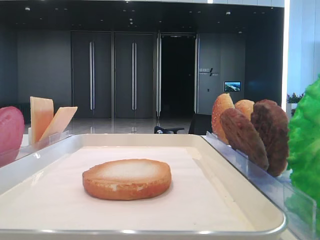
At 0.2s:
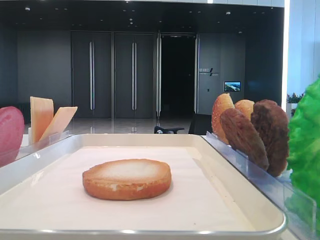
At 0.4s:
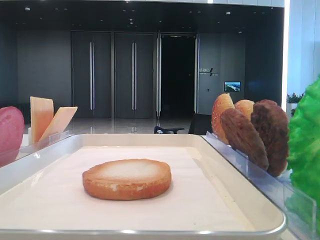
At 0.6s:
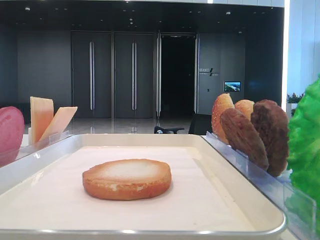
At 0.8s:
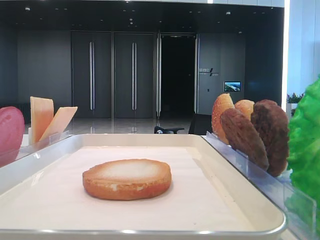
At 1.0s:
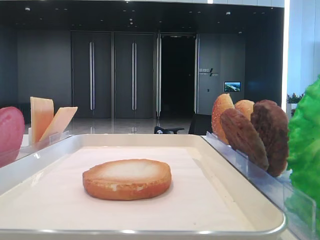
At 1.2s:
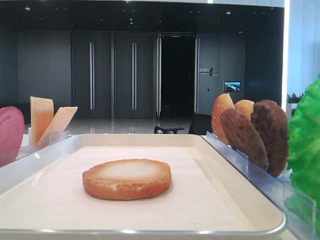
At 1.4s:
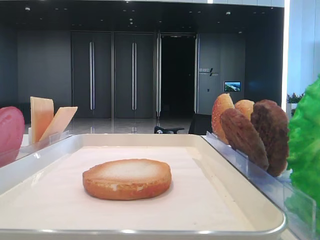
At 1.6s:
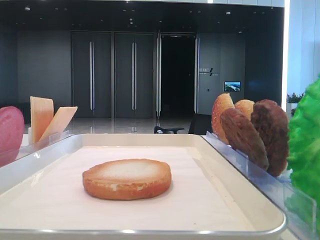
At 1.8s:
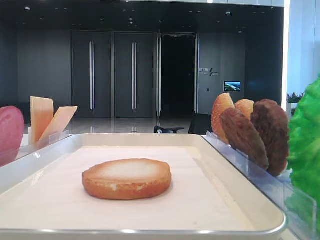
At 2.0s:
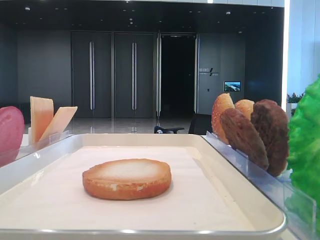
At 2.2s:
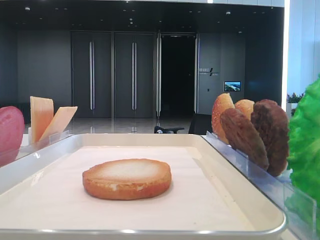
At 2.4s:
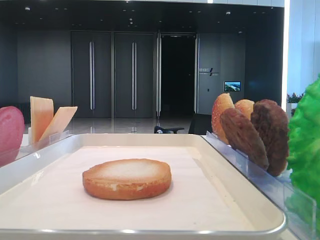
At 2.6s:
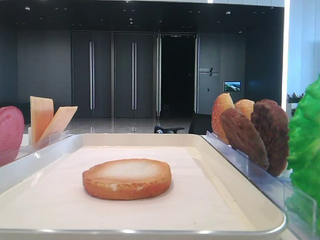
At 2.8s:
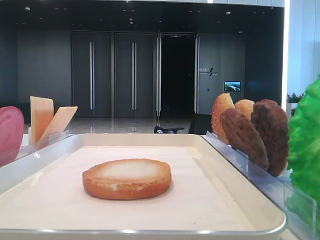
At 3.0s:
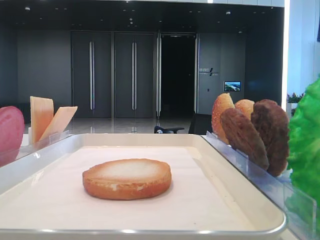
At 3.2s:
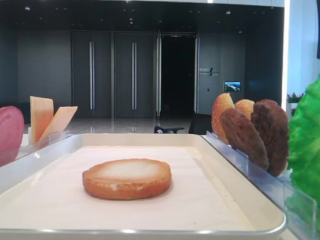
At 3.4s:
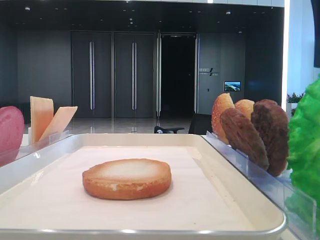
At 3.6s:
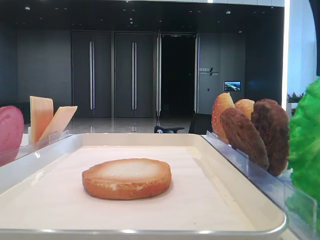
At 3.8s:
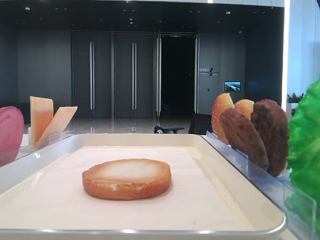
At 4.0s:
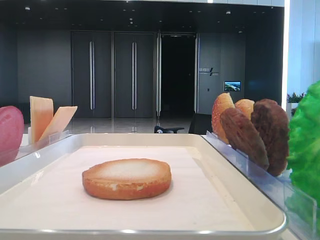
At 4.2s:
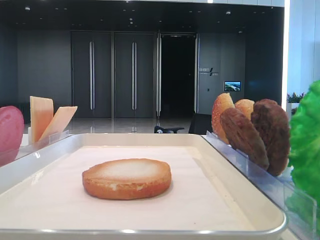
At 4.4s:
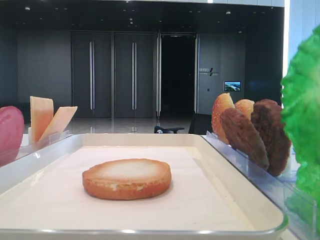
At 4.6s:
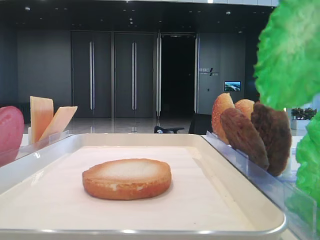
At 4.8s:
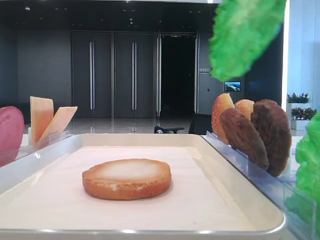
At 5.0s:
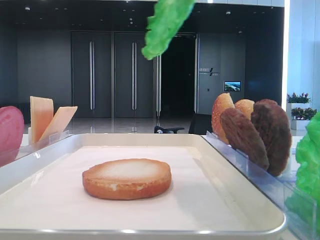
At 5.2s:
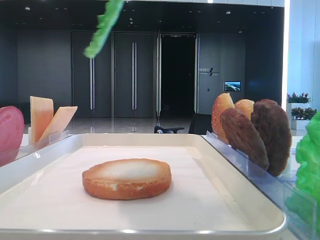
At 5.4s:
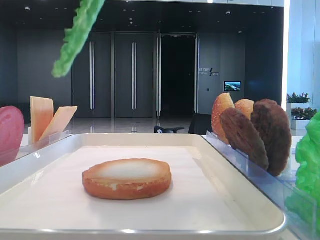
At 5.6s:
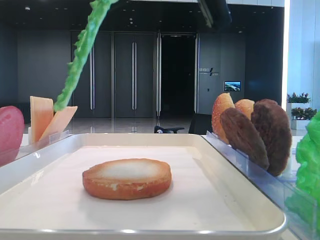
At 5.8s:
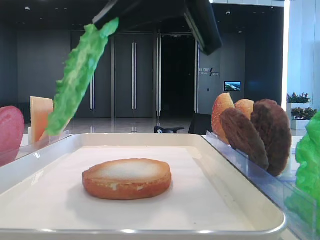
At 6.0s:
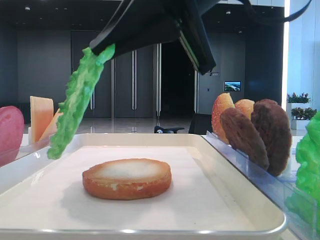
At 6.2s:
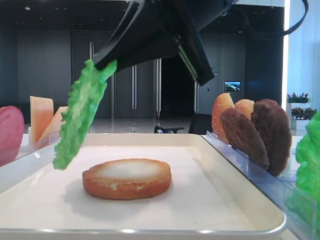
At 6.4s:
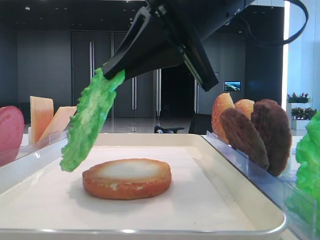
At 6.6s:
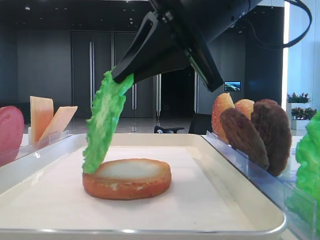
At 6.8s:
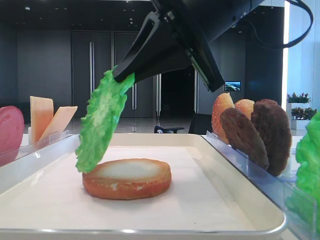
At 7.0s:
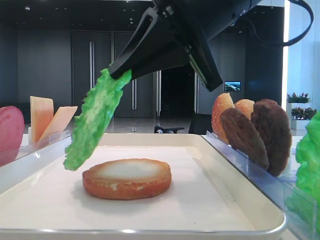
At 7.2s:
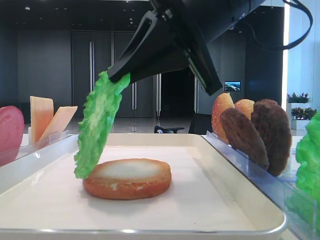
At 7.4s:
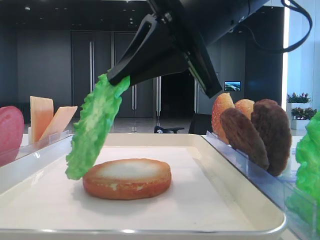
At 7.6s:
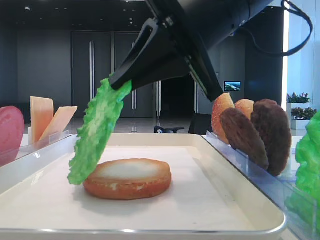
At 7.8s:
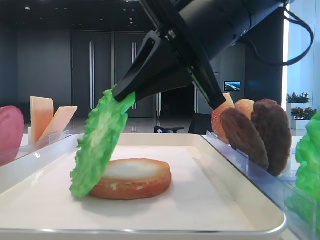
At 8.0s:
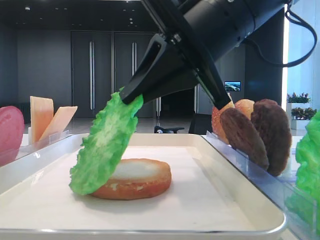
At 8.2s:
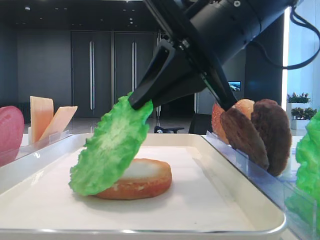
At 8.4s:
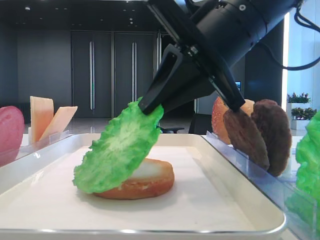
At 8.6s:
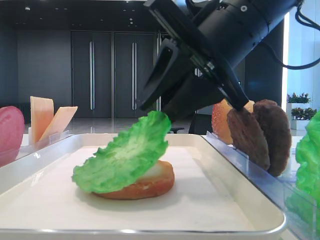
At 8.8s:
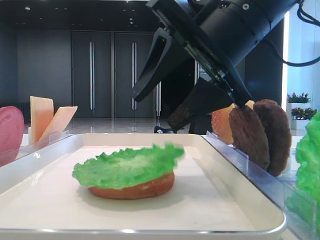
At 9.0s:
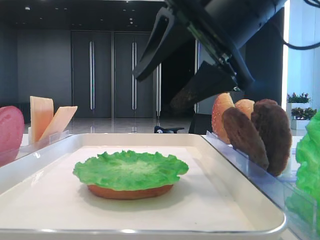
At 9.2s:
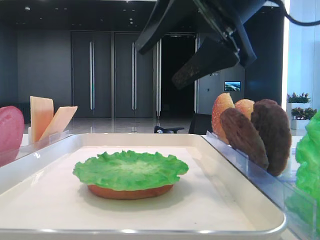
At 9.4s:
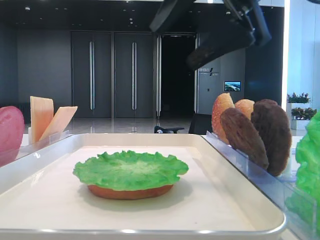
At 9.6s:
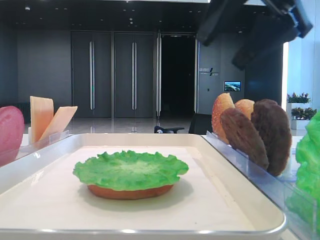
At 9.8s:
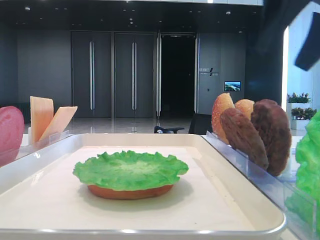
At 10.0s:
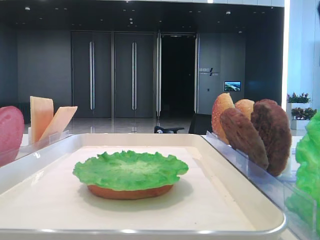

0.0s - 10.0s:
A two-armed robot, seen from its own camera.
Step, 4.2s - 8.6s: Place the lettuce leaf on the bottom bread with the right hand.
4.2s - 5.8s: The right gripper goes approximately 10 cm to the left and forward.
5.8s - 7.2s: The grippers make only small movements.
7.2s - 8.6s: The right gripper opens.
8.6s - 10.0s: The right gripper goes roughly 20 cm to the right and upward, and opens its fingers.

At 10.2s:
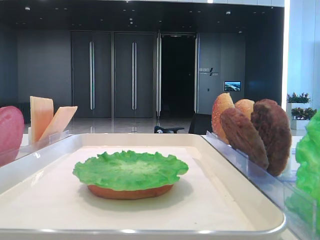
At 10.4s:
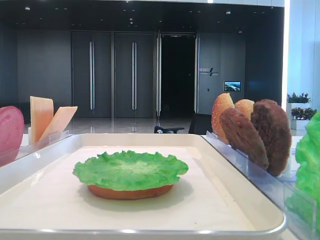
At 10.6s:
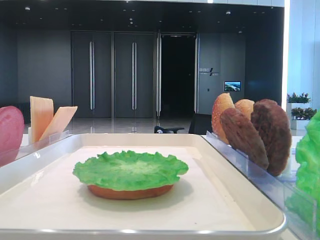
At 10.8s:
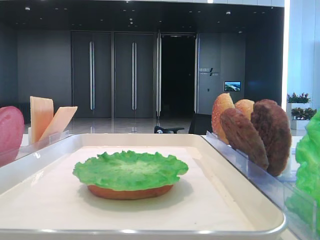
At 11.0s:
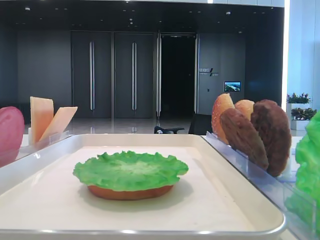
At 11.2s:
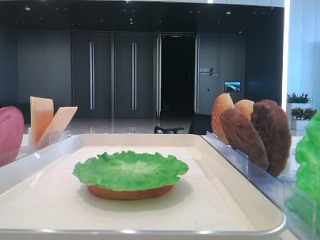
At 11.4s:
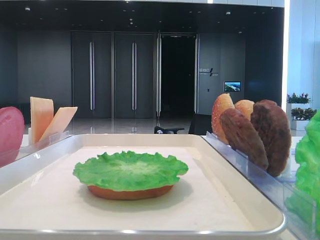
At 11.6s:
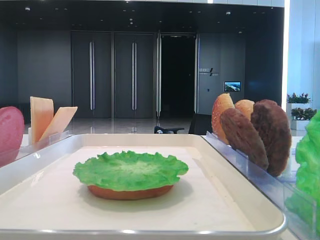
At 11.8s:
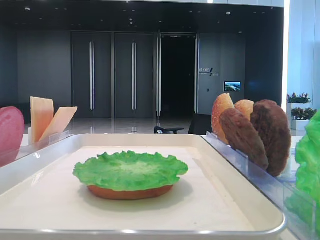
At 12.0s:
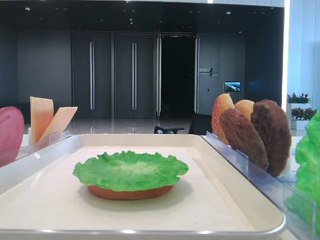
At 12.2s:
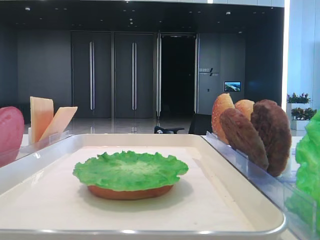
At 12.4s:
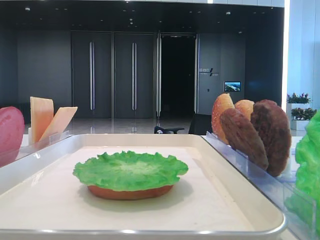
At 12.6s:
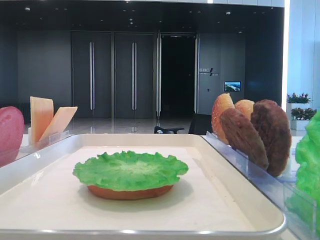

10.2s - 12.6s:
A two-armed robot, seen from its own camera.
10.2s - 11.4s: The right gripper shifts roughly 25 cm backward.

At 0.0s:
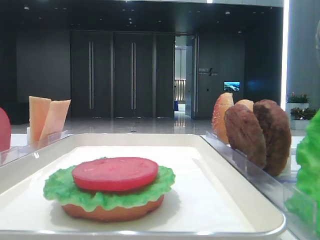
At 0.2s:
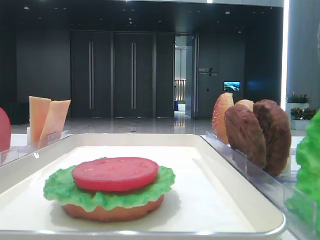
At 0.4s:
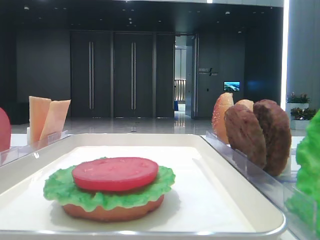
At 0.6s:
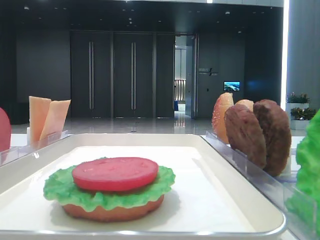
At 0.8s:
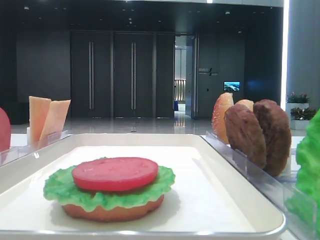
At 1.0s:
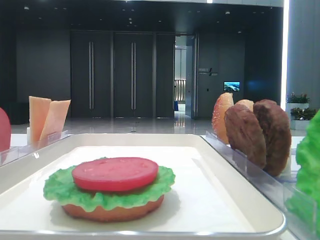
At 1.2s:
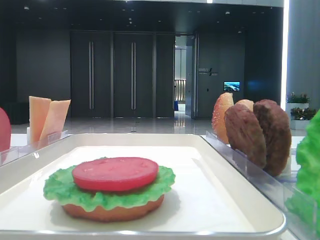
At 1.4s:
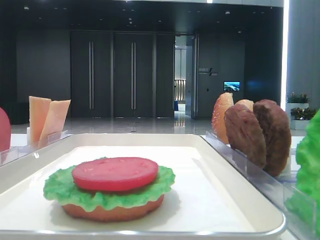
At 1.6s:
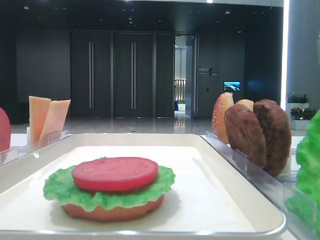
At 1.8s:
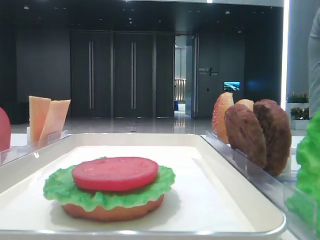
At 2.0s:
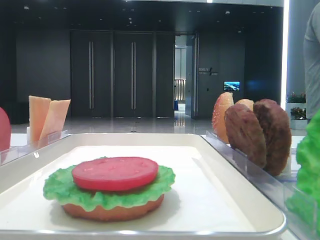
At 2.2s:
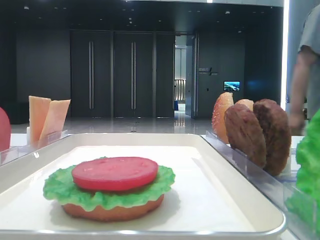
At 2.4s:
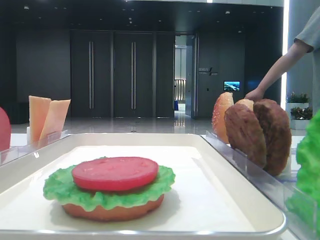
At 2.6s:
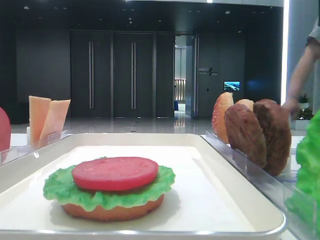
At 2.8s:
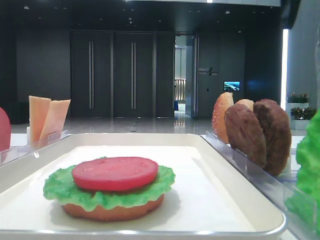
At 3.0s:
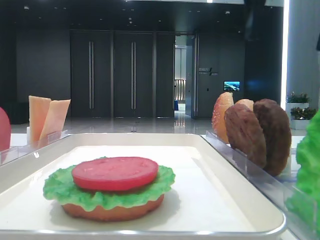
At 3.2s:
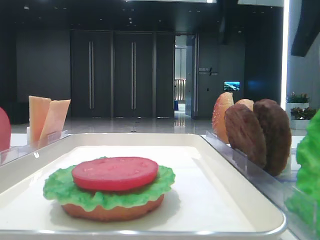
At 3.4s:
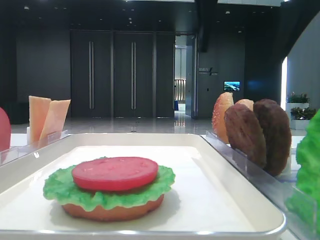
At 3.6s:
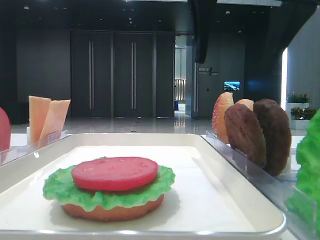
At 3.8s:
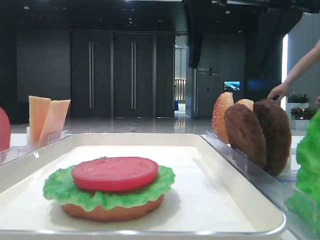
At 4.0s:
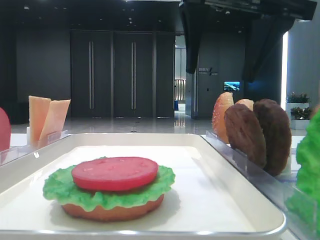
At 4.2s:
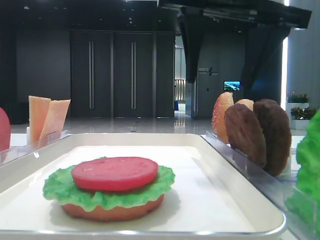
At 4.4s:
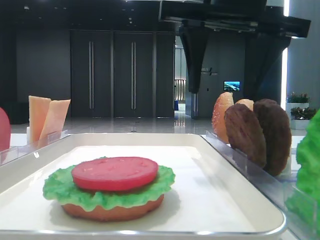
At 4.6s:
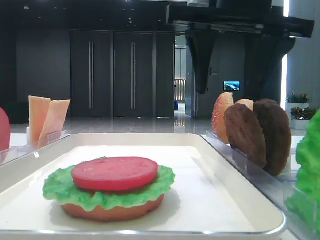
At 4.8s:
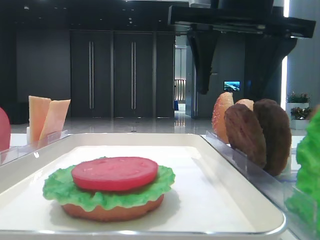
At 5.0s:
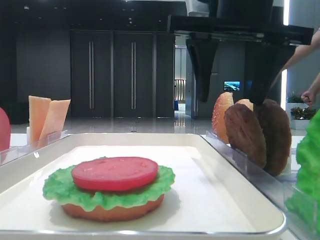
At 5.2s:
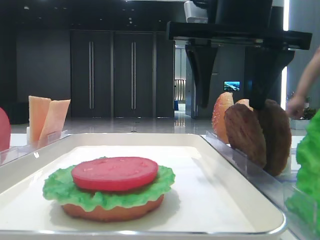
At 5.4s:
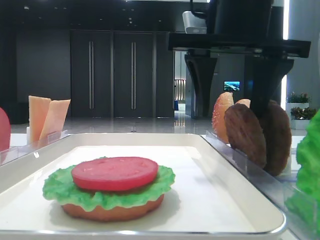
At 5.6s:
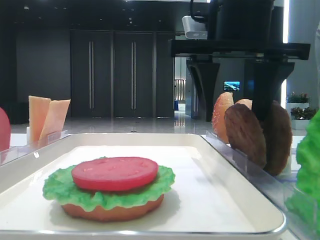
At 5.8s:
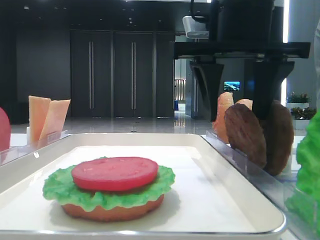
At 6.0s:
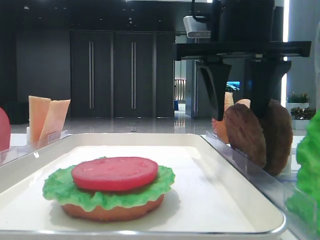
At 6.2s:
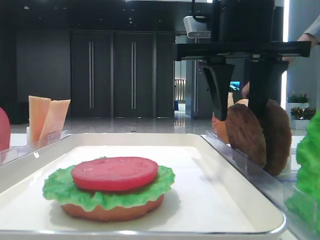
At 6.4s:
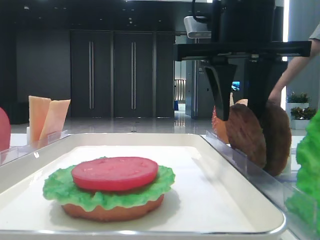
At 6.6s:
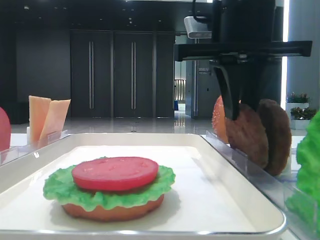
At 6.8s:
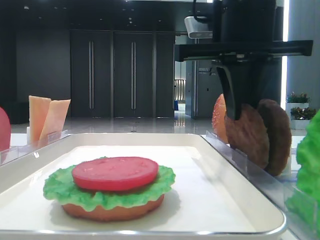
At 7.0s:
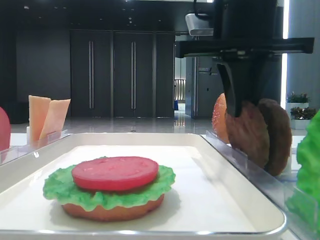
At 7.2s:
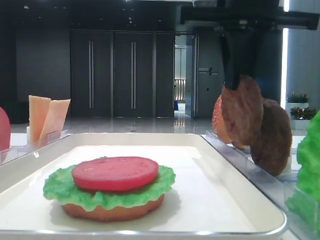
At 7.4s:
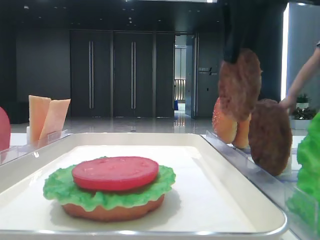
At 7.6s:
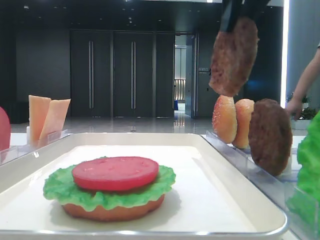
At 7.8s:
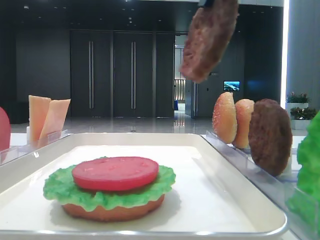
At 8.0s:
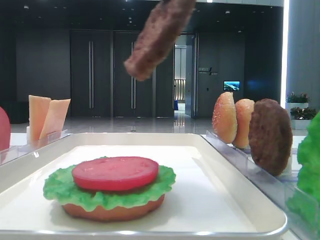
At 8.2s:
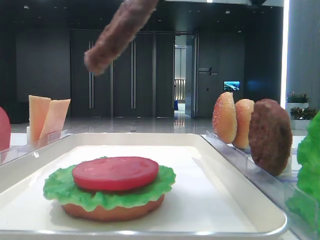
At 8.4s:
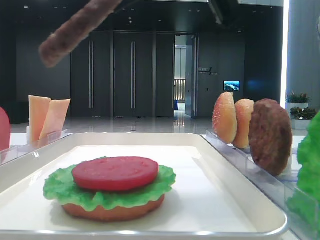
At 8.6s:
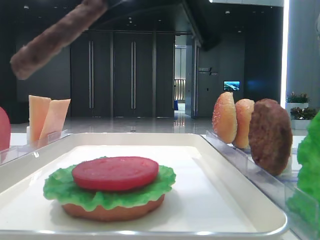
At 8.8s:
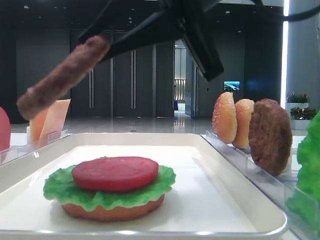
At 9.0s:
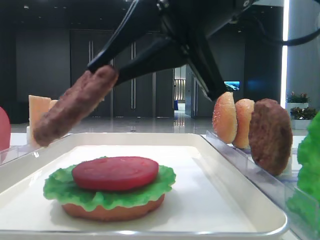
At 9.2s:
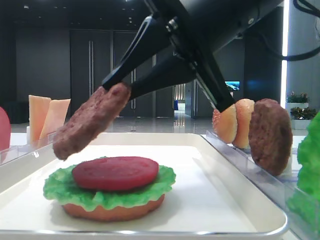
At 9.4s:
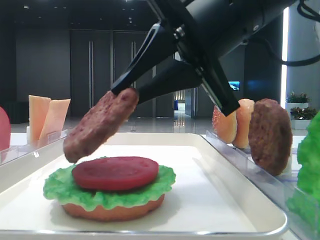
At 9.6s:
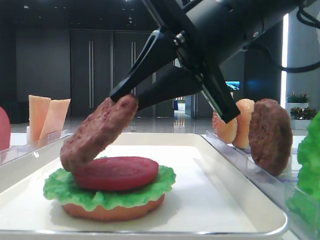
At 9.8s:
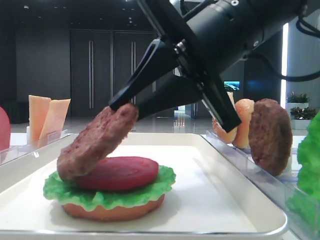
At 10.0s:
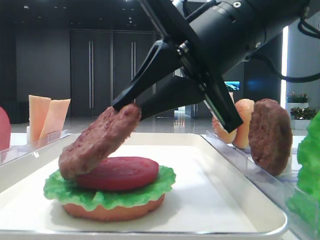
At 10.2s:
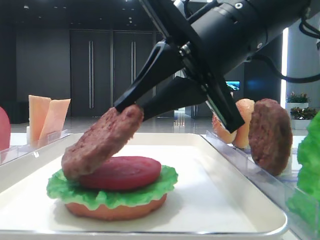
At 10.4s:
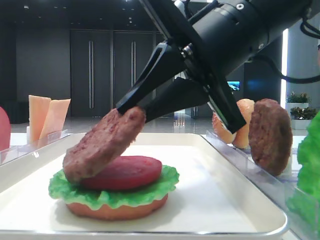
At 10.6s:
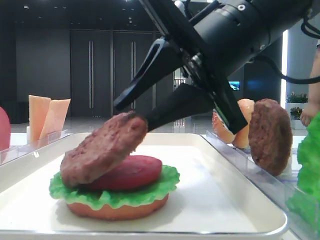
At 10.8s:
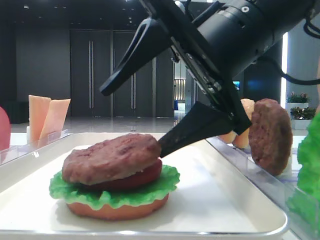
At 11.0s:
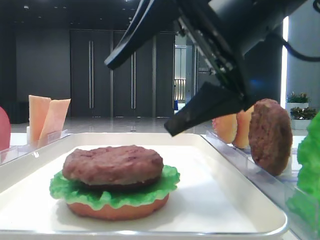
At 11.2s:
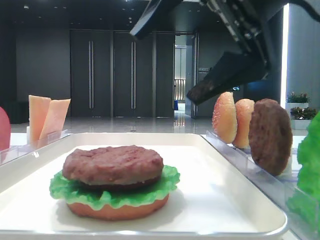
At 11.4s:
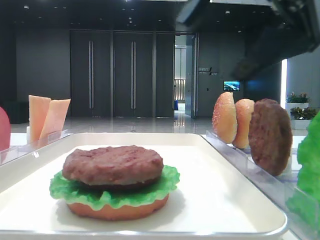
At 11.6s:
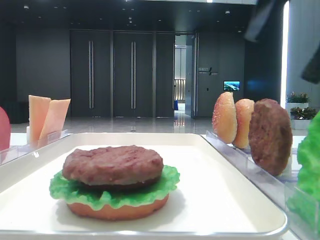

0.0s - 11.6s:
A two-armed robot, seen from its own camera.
Step, 0.0s - 6.8s: Grab the patty with the right hand.
Step, 7.0s - 10.8s: Place the patty on the tomato slice with the right hand.
1.4s - 2.8s: The right gripper travels forward and to the left by roughly 20 cm.
2.8s - 4.4s: The right gripper heads to the left and downward, covering roughly 15 cm, while the left gripper closes its fingers.
4.4s - 5.8s: There are only small adjustments of the grippers.
5.8s - 7.2s: The right gripper closes up.
7.2s - 8.8s: The right gripper heads backward, covering roughly 5 cm, and travels upward and back again, some 5 cm each way.
8.8s - 10.2s: The right gripper moves roughly 5 cm.
10.2s - 11.6s: The right gripper goes roughly 15 cm to the right and upward, and opens its fingers.
